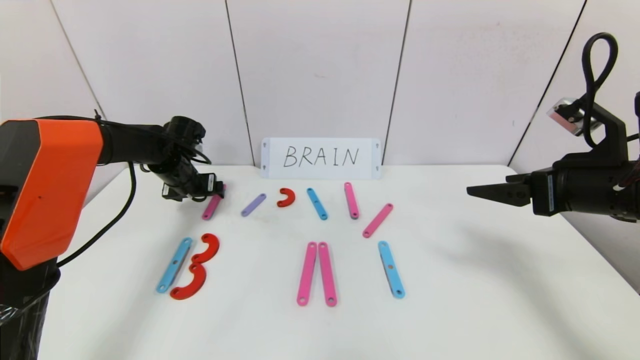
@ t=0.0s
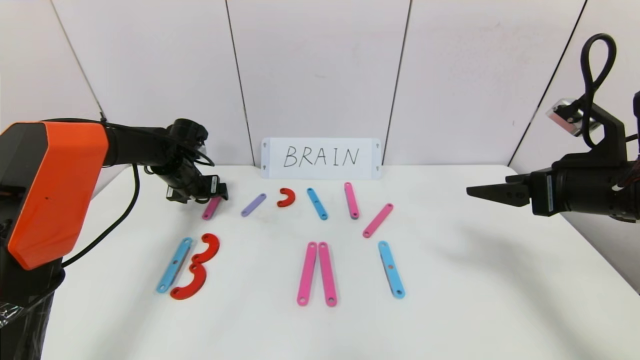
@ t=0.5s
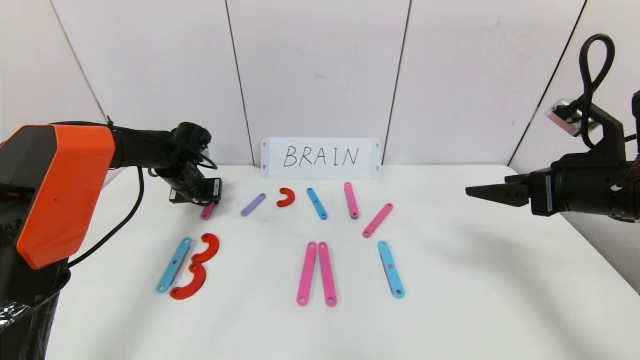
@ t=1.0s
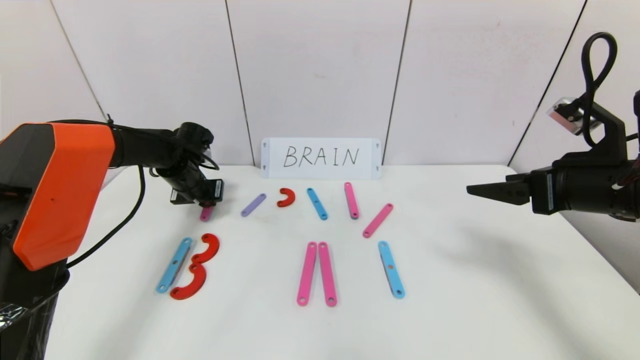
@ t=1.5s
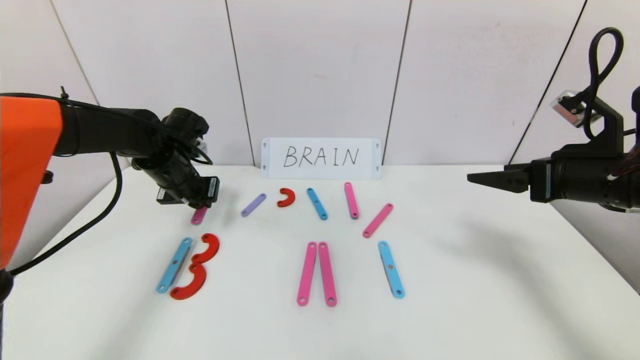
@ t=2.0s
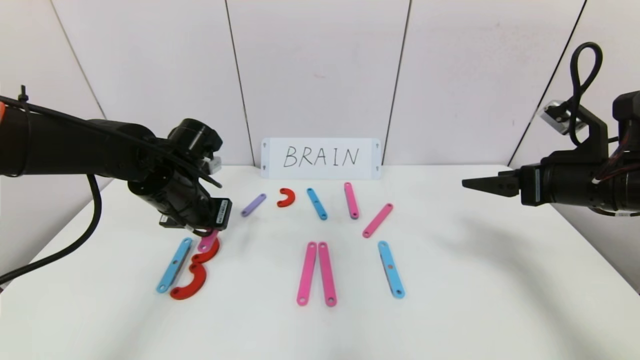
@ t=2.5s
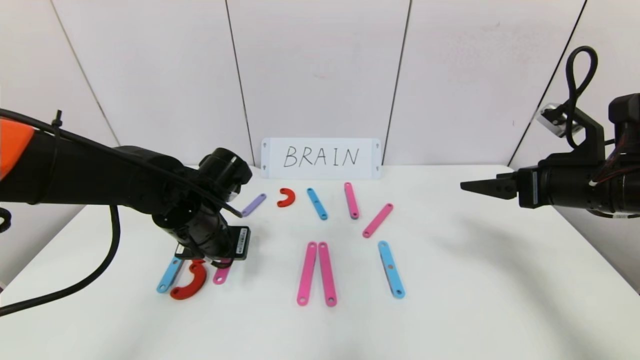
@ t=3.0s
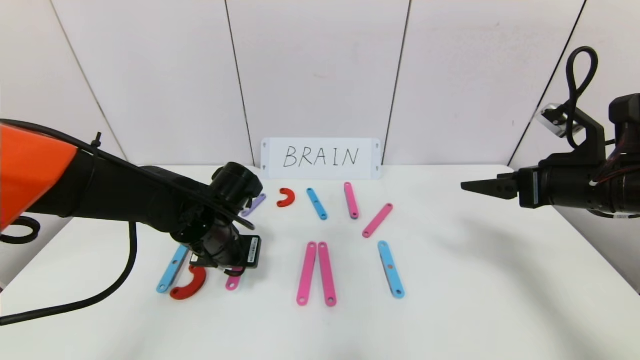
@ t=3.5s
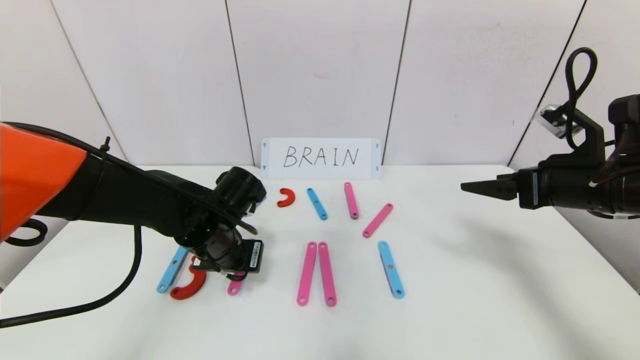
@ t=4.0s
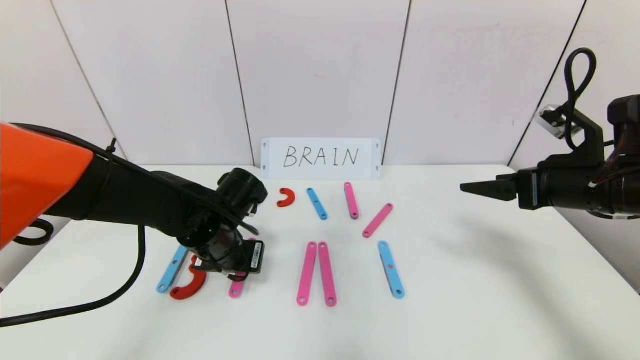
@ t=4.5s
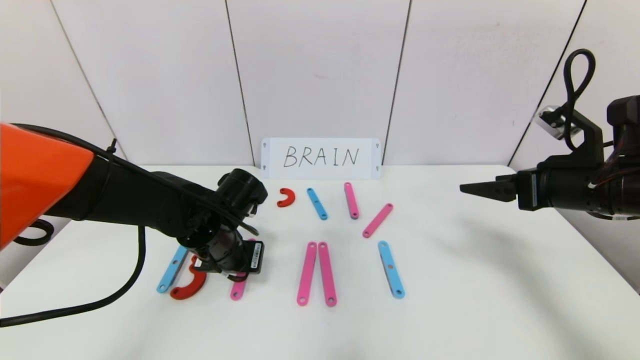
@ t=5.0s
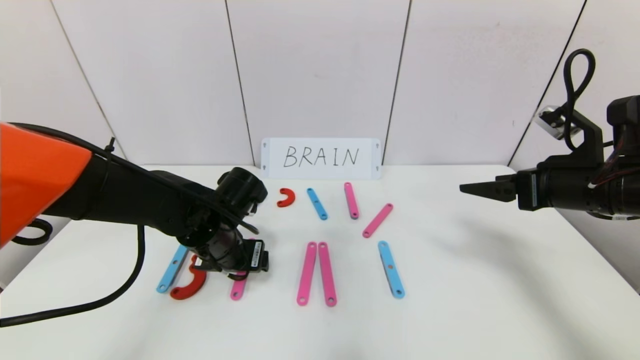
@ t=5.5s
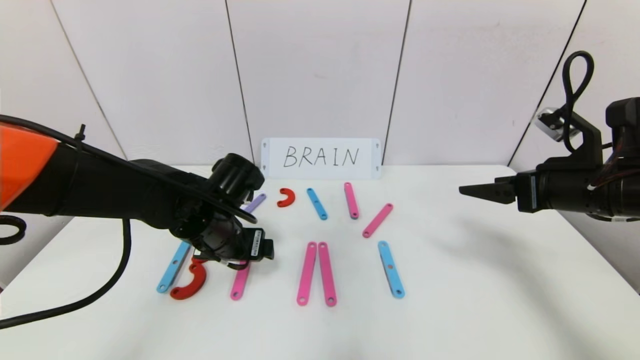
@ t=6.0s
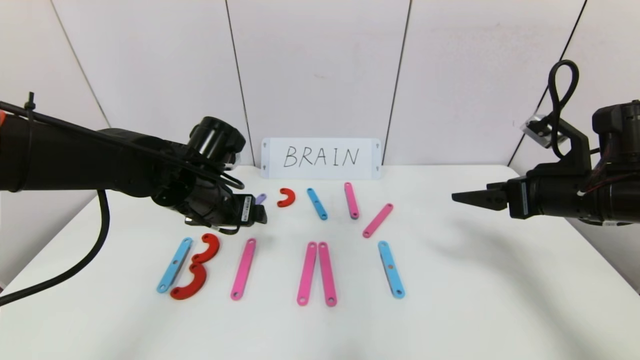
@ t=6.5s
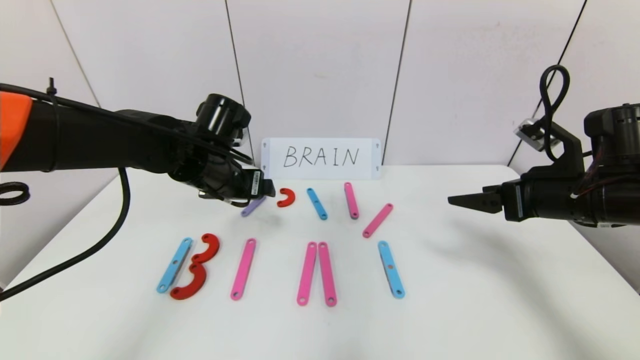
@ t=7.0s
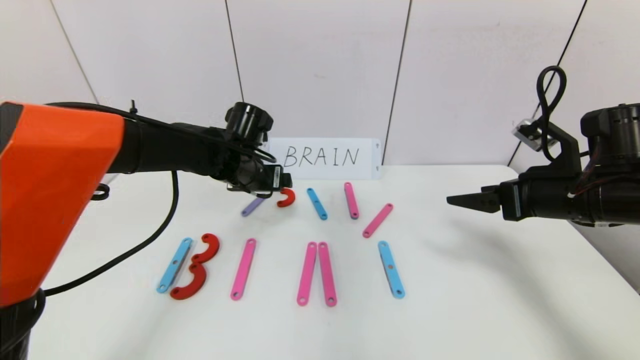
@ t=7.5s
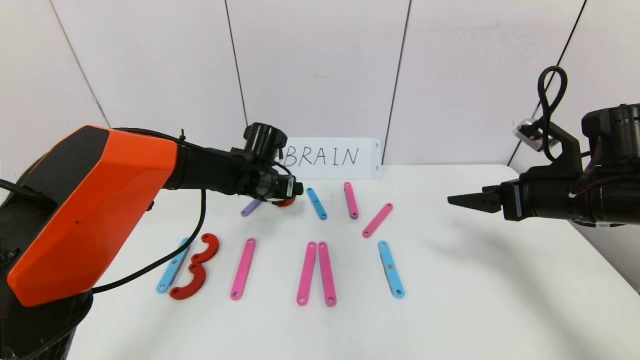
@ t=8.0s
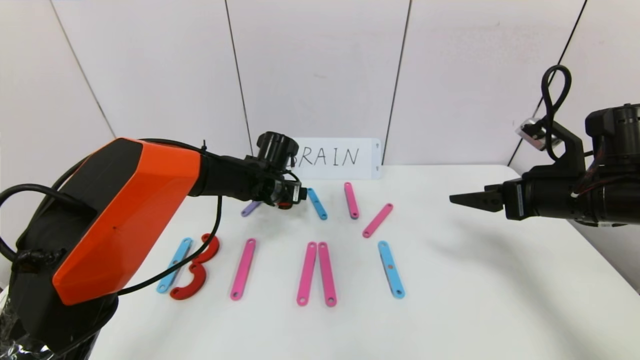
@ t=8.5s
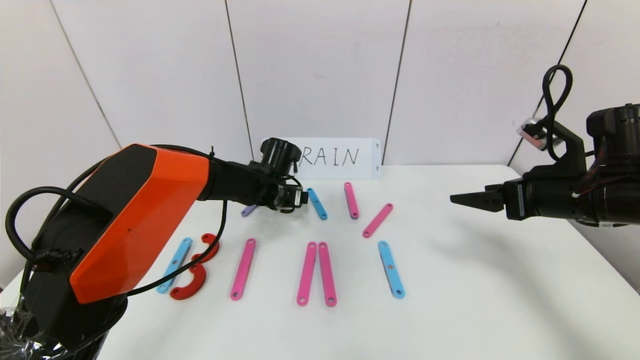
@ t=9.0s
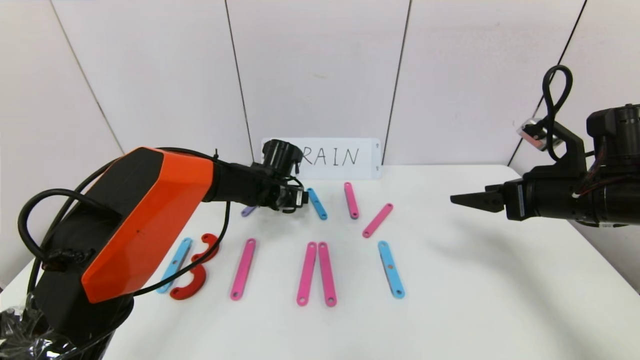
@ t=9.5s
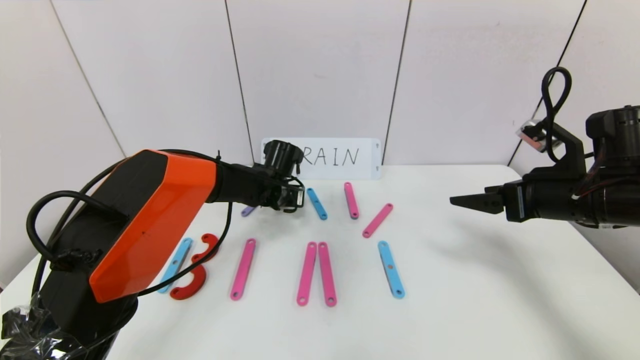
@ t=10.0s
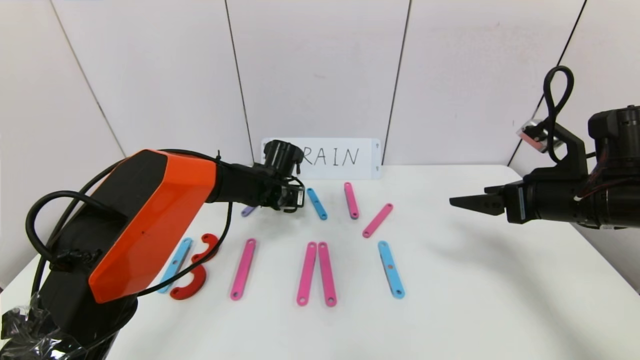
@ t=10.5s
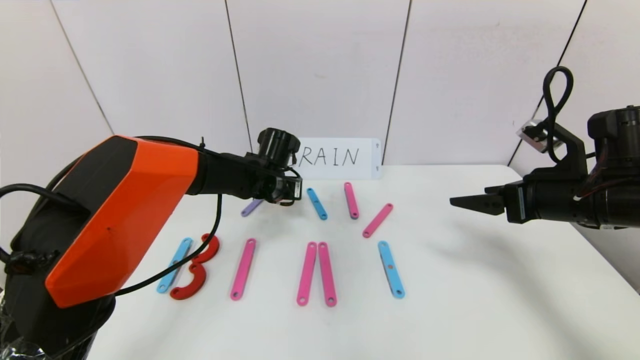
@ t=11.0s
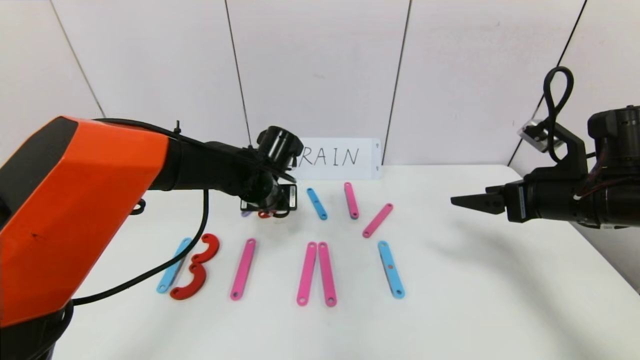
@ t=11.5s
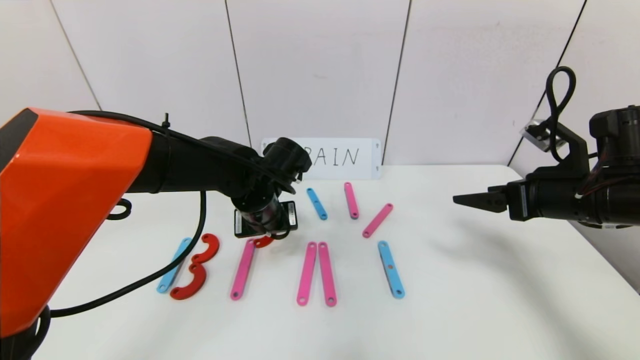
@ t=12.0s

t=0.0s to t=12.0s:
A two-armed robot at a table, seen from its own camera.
Task of the whole recording: rearrange the word baai as brain.
t=0.0s to t=2.0s: The left gripper is displaced backward by some 5 cm, and closes its fingers.
t=2.0s to t=4.0s: The left gripper is displaced backward, to the right and downward by some 15 cm.
t=4.0s to t=6.0s: The left gripper opens.
t=6.0s to t=8.0s: The left gripper travels forward by about 15 cm.
t=8.0s to t=10.0s: The left gripper ends up about 5 cm from where it was, and closes its fingers.
t=10.0s to t=12.0s: The left gripper heads backward and upward, covering approximately 10 cm.

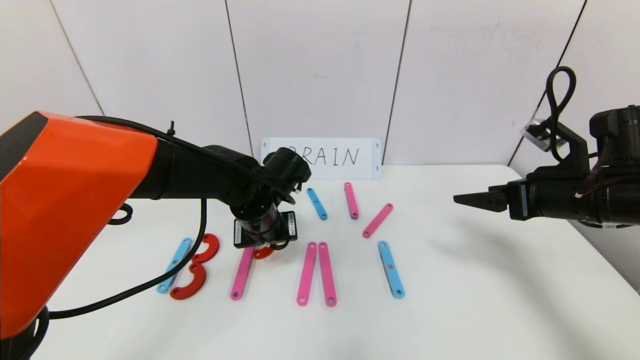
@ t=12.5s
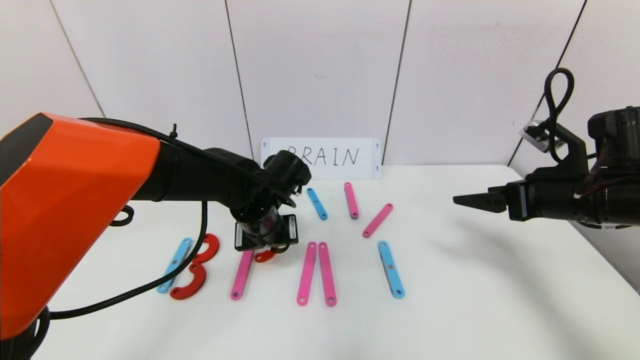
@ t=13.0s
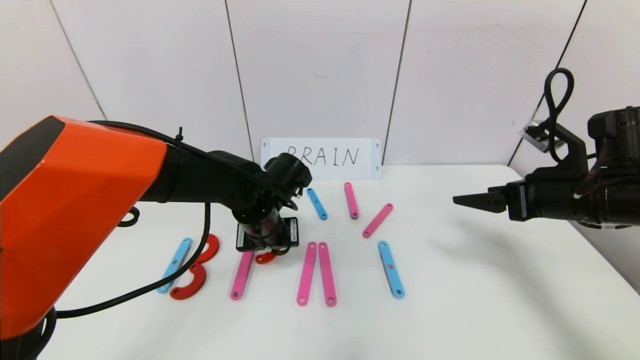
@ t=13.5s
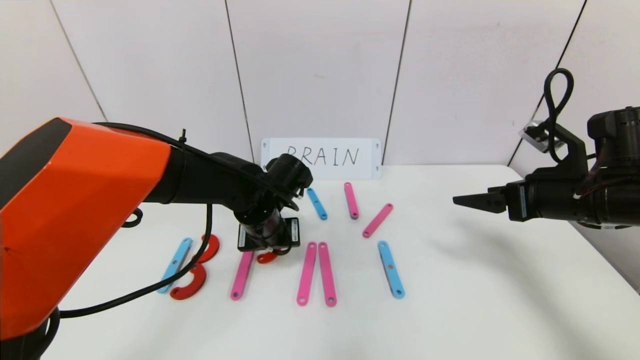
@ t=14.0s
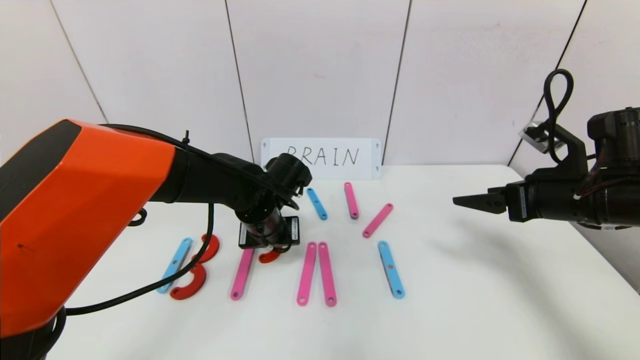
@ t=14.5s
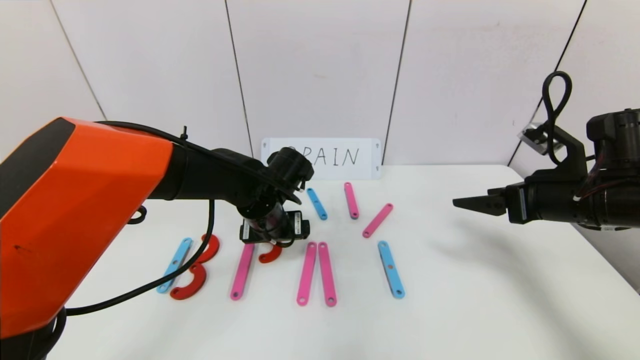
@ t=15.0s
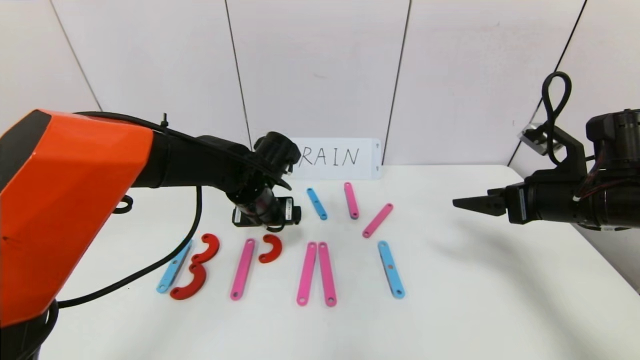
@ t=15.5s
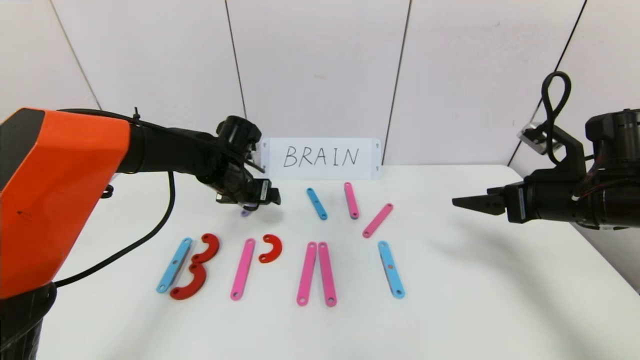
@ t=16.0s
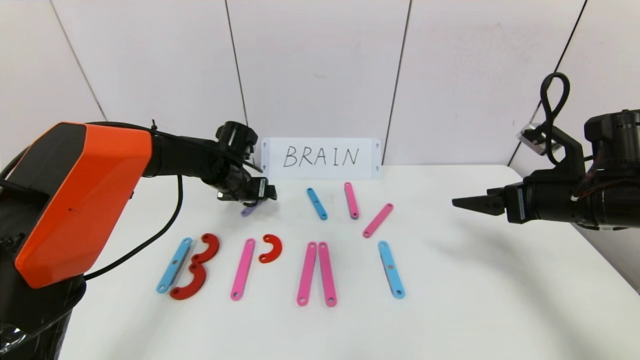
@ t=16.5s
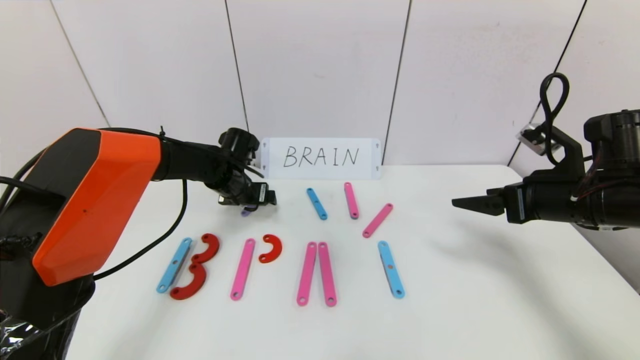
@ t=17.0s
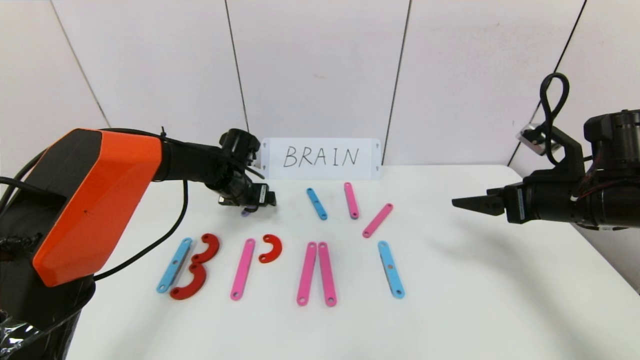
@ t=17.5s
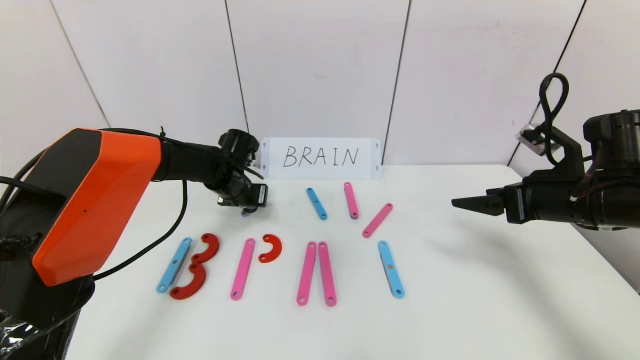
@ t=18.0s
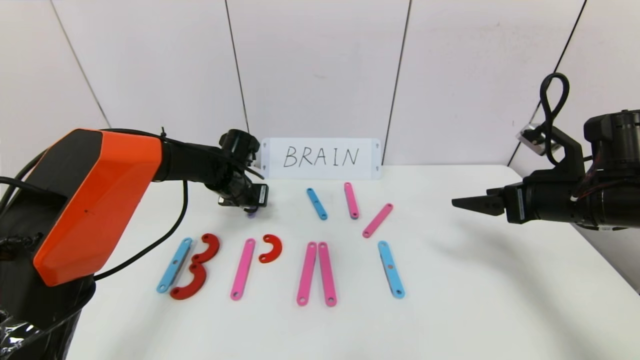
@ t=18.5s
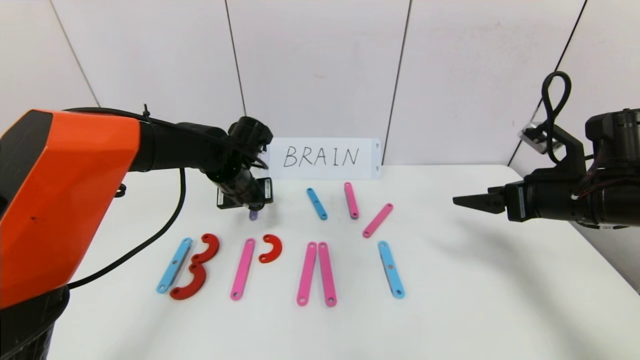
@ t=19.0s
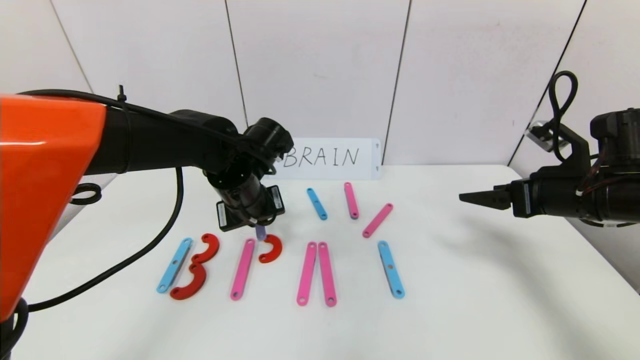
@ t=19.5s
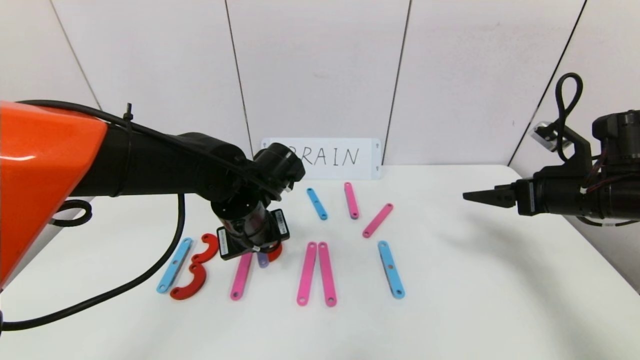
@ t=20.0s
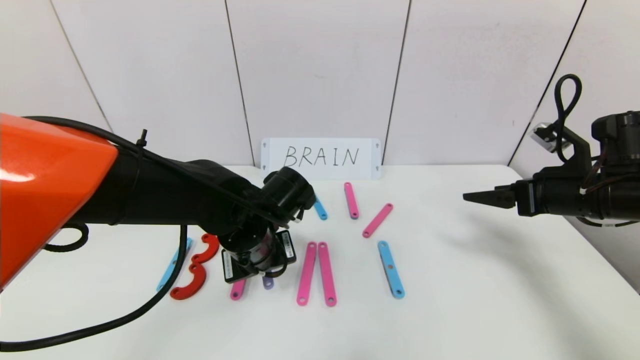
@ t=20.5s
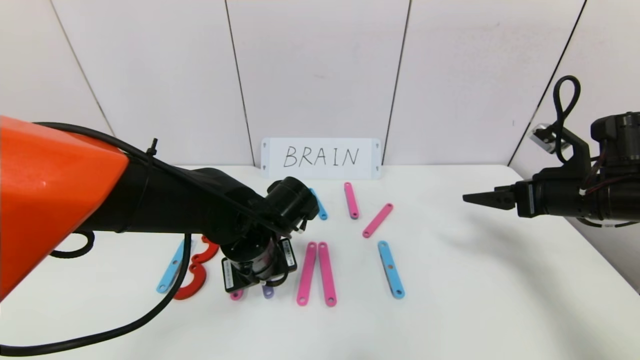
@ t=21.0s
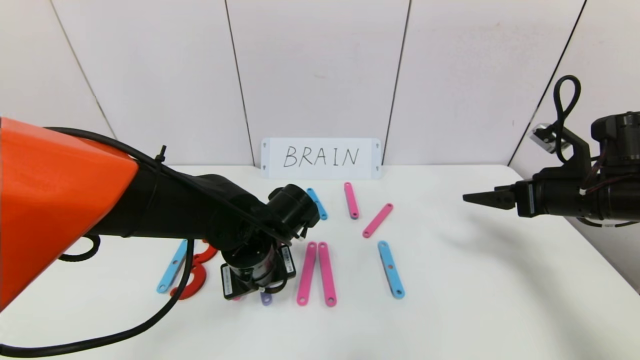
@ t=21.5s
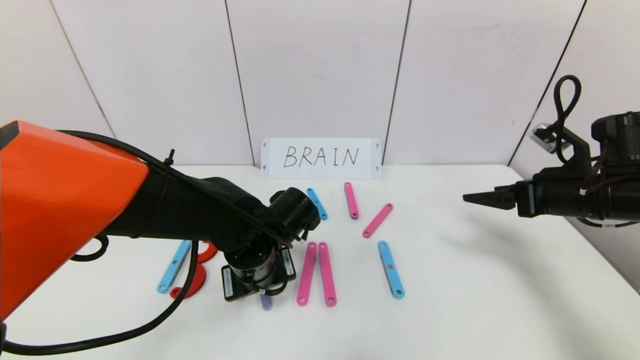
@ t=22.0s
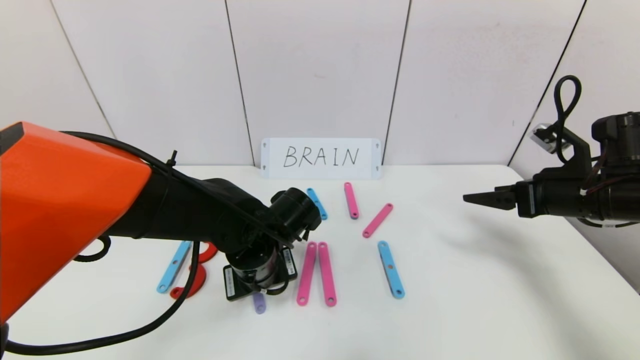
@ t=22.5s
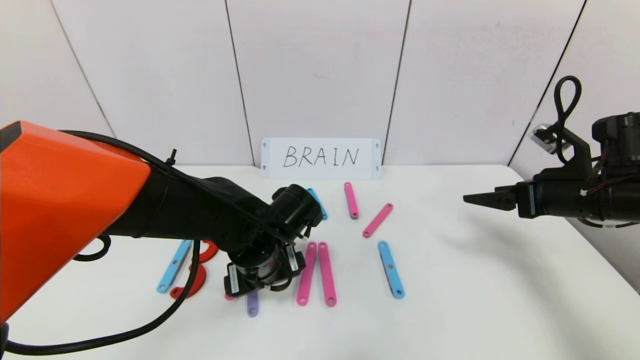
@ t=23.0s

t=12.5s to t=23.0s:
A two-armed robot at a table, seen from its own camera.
Task of the whole recording: rearrange the word baai as brain.
t=12.5s to t=14.5s: The left gripper opens up.
t=14.5s to t=16.5s: The left gripper travels forward and to the left by some 15 cm, and opens its fingers.
t=16.5s to t=19.0s: The left gripper ends up about 5 cm from where it was, and closes its fingers.
t=19.0s to t=21.0s: The left gripper shifts approximately 15 cm backward and to the right.
t=21.0s to t=23.0s: The left gripper opens.
